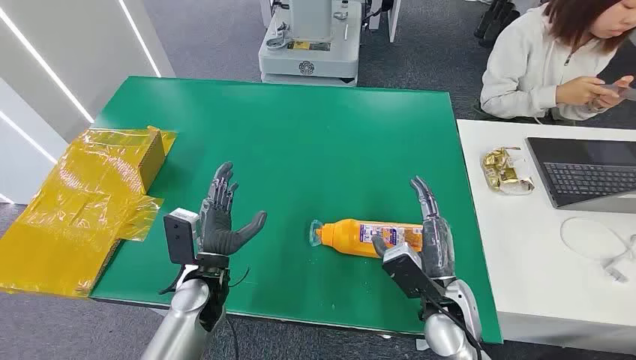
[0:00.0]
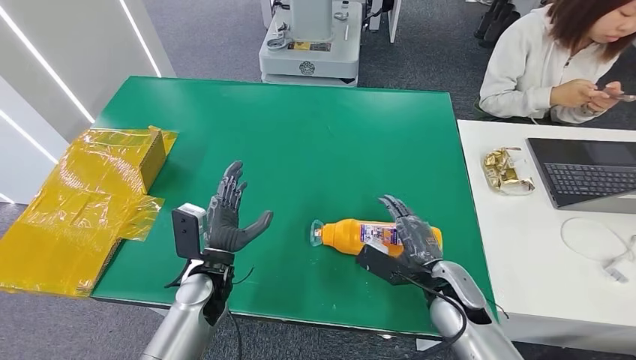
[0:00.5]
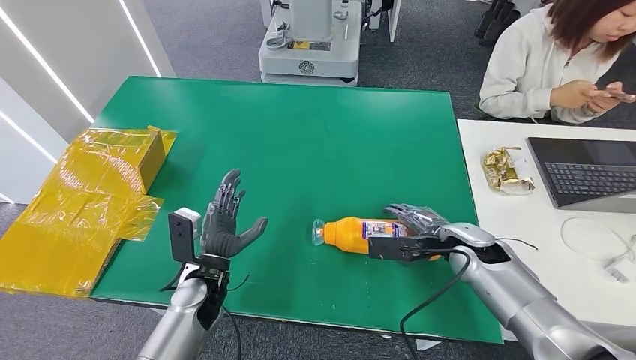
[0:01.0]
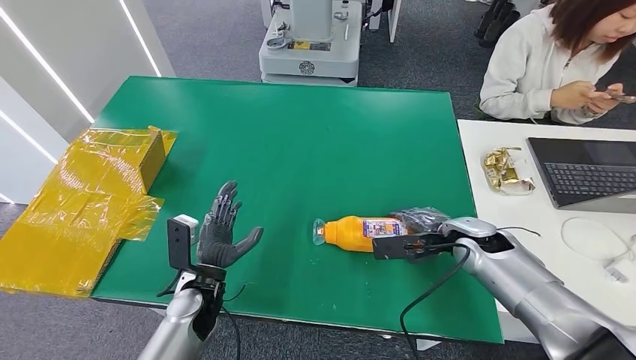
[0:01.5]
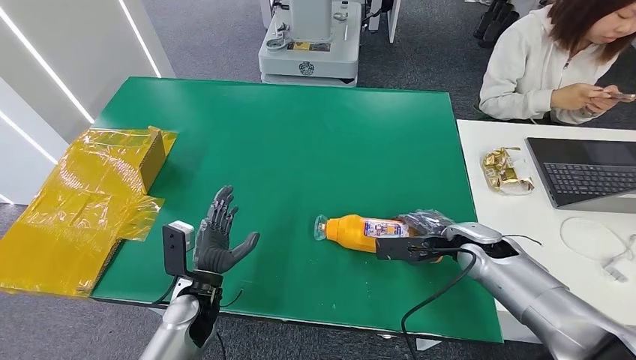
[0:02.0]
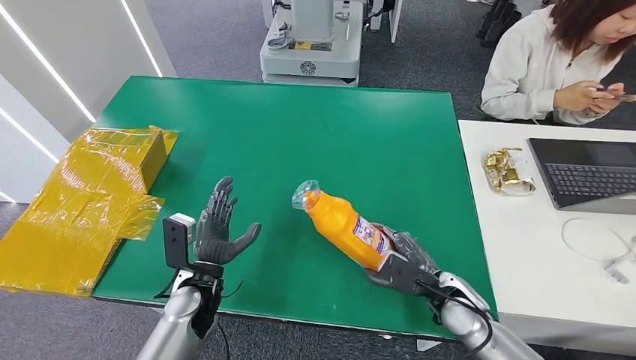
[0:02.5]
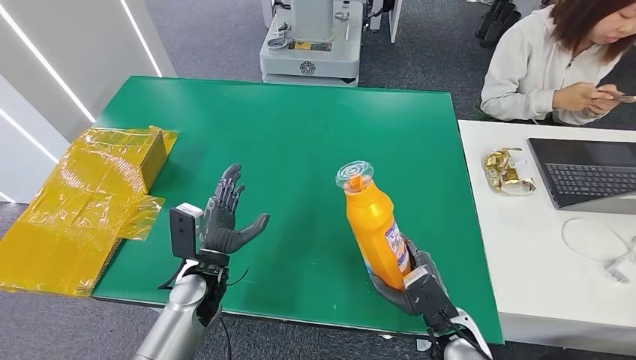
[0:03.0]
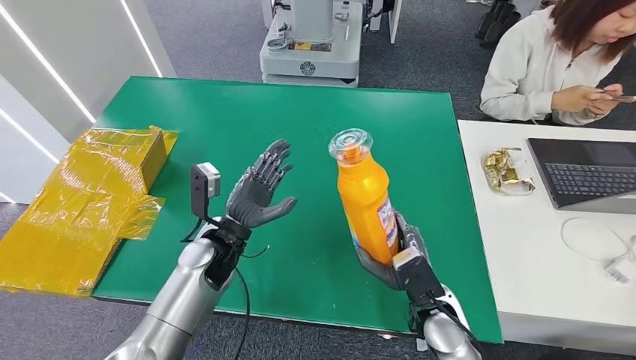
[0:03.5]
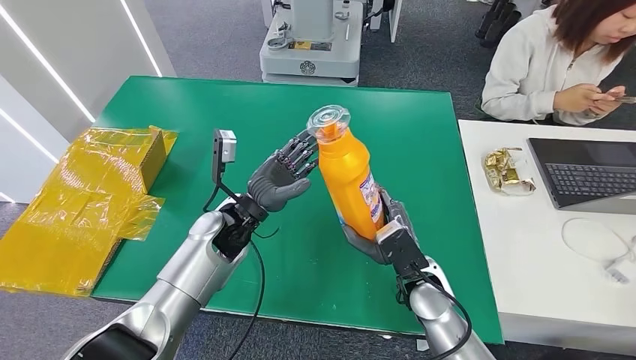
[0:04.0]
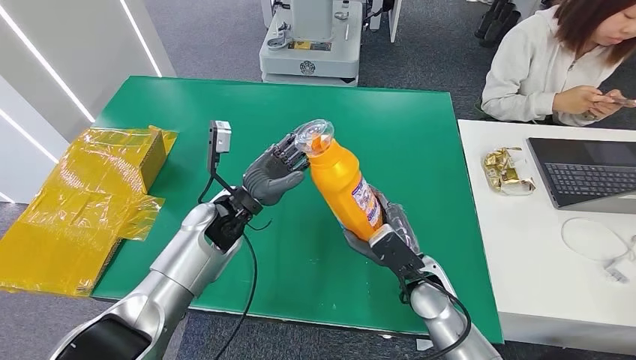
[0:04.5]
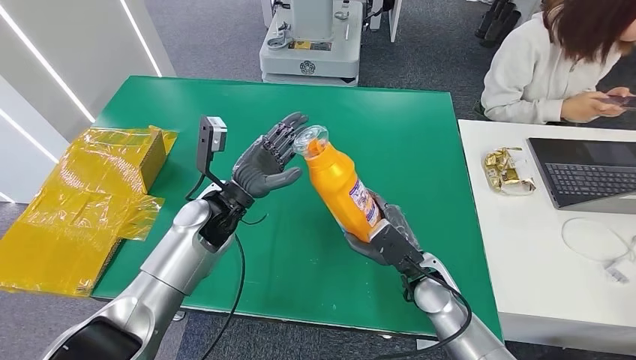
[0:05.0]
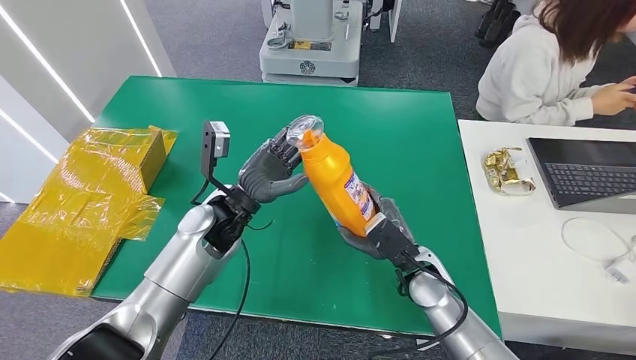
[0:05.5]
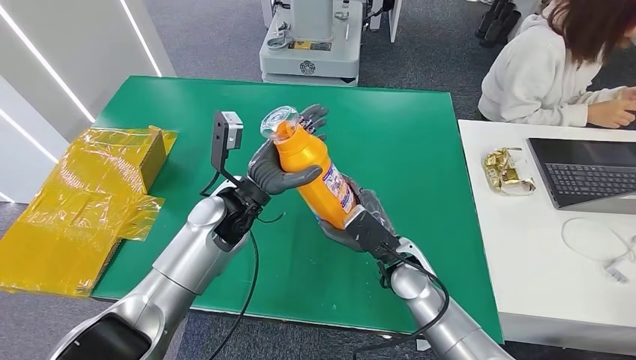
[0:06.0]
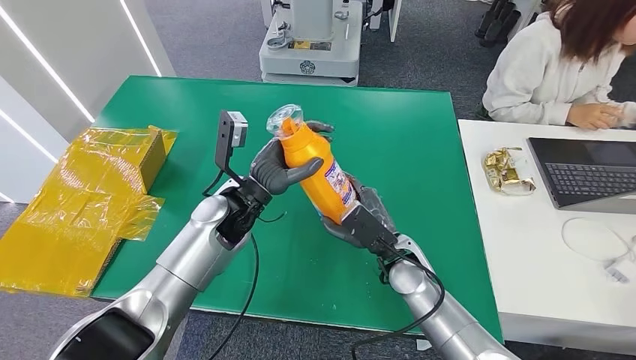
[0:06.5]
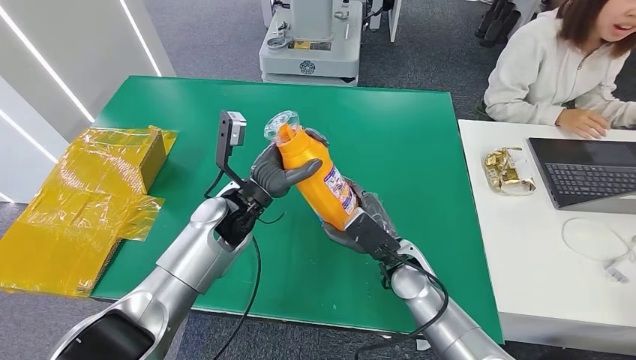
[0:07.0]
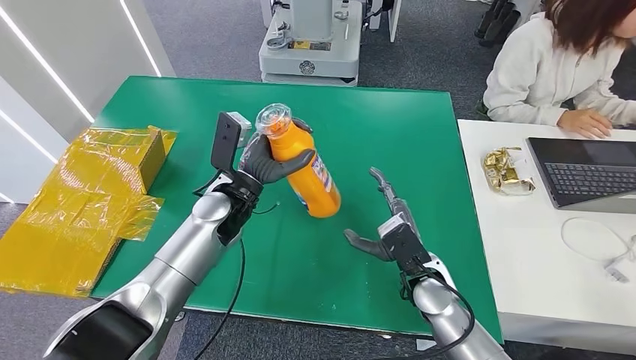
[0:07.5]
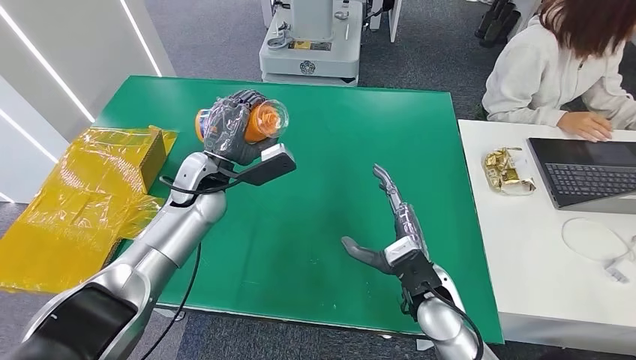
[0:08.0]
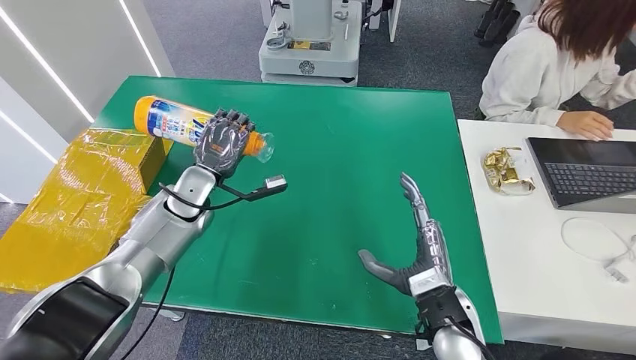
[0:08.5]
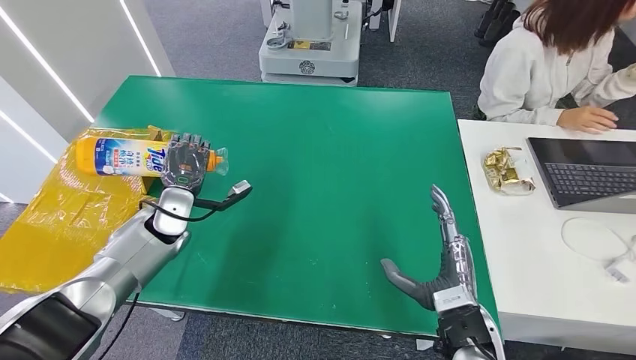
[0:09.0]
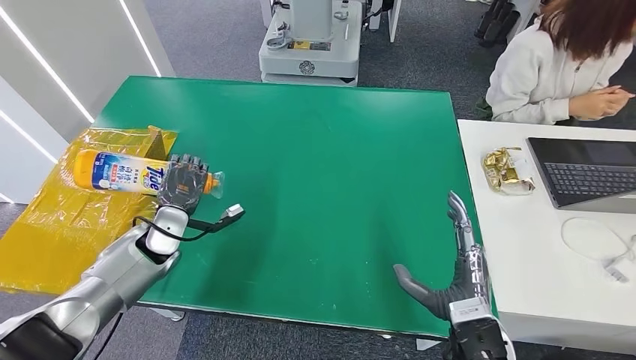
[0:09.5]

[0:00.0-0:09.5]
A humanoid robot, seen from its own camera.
Step, 0:00.0 to 0:03.5: Pick up the bottle from the table.
0:04.0 to 0:05.5: The hands make only small movements.

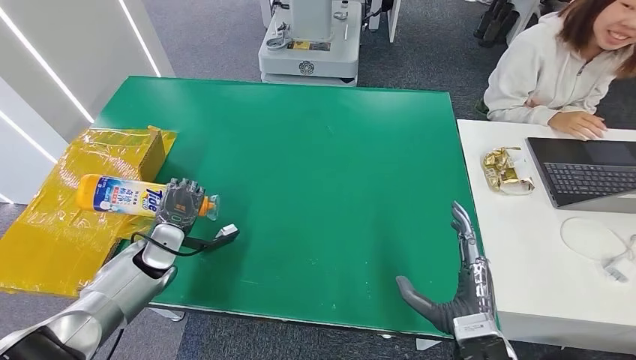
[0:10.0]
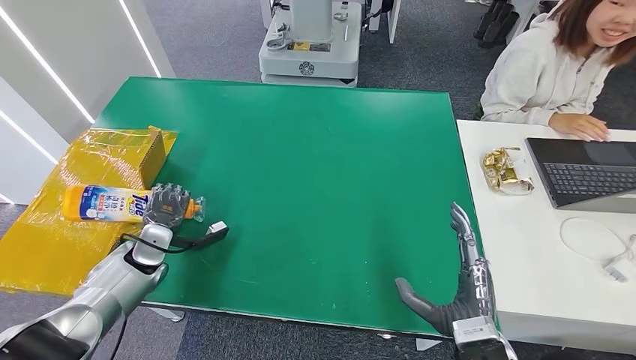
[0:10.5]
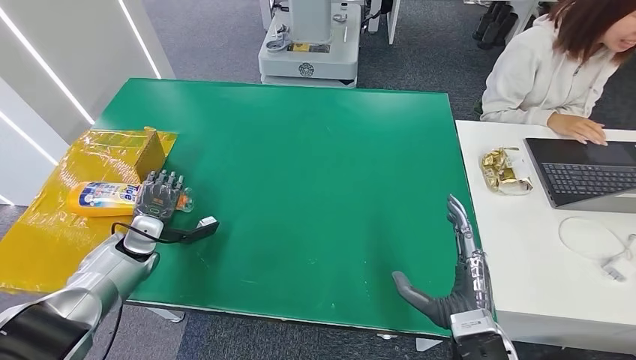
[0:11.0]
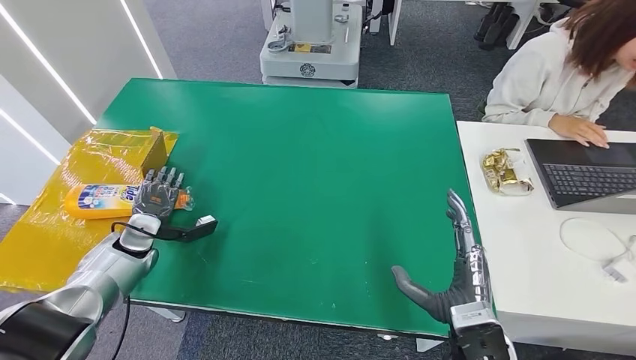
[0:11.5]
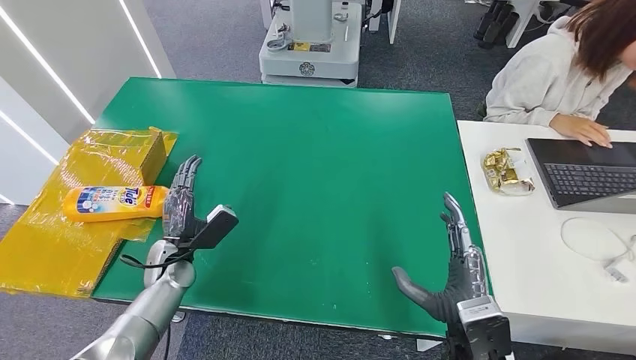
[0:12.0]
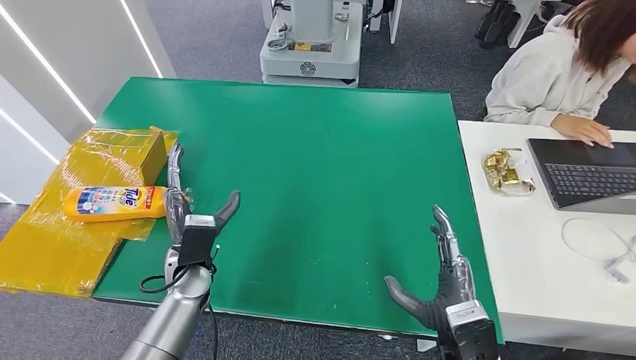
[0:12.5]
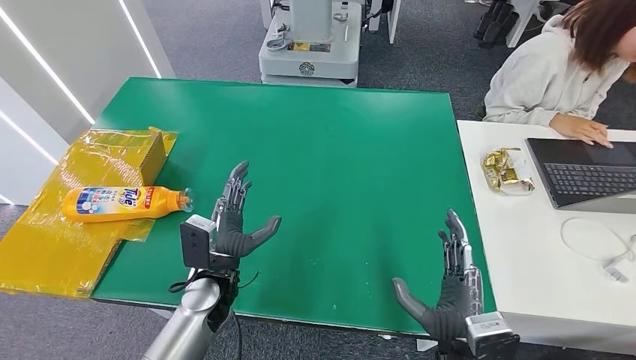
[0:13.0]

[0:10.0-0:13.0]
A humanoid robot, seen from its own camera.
Step, 0:10.0 to 0:13.0: Turn the bottle to the front side.
0:10.0 to 0:11.5: The left hand moves to the left, some 5 cm.
0:11.5 to 0:13.0: The left hand shifts roughly 20 cm to the right.

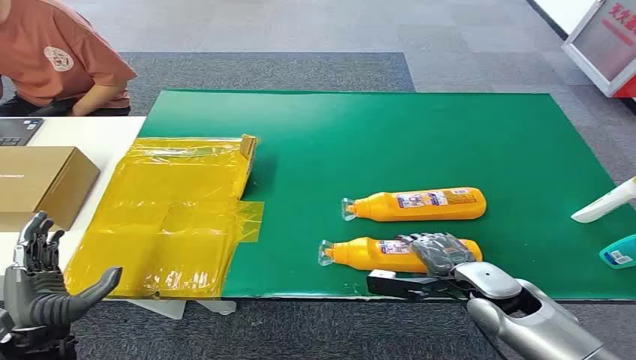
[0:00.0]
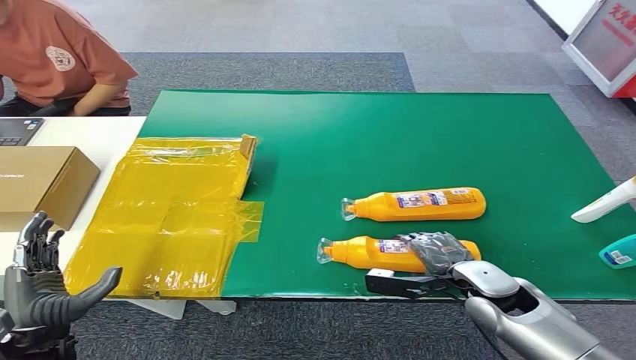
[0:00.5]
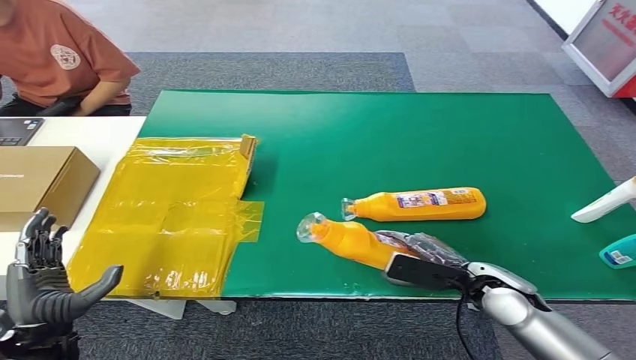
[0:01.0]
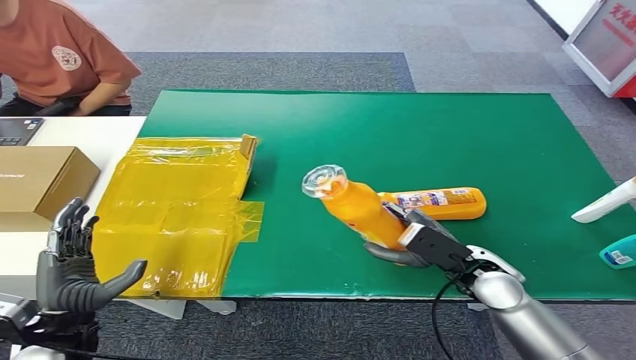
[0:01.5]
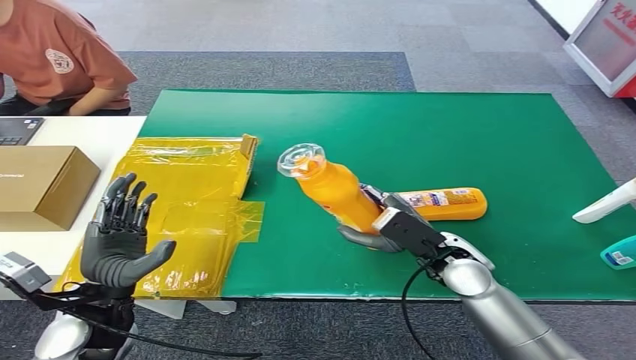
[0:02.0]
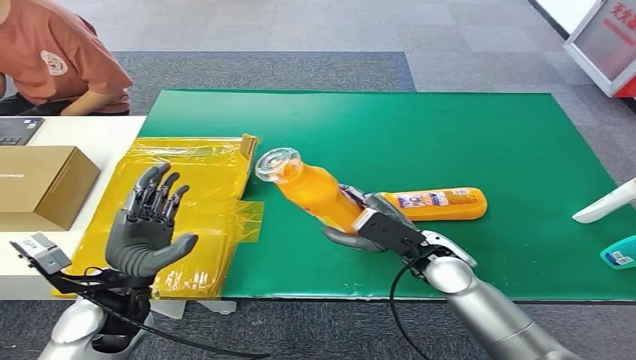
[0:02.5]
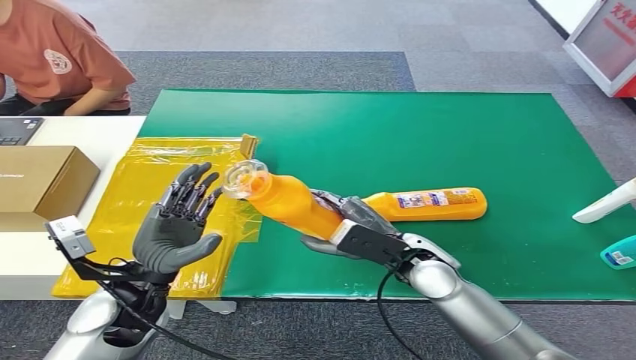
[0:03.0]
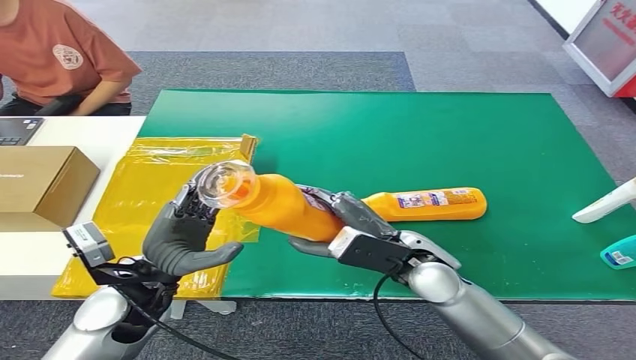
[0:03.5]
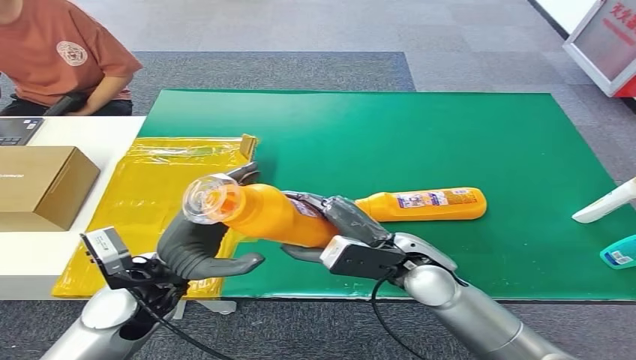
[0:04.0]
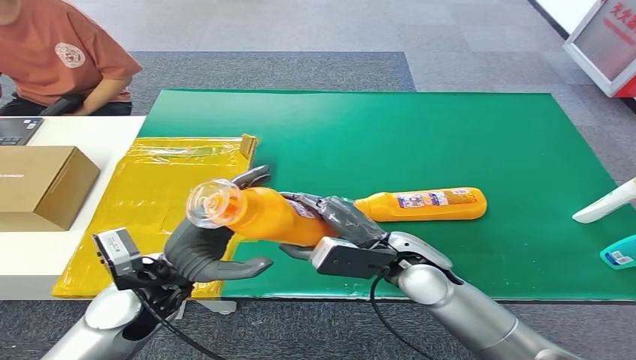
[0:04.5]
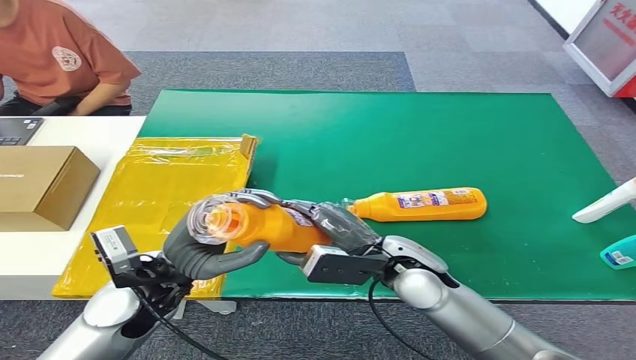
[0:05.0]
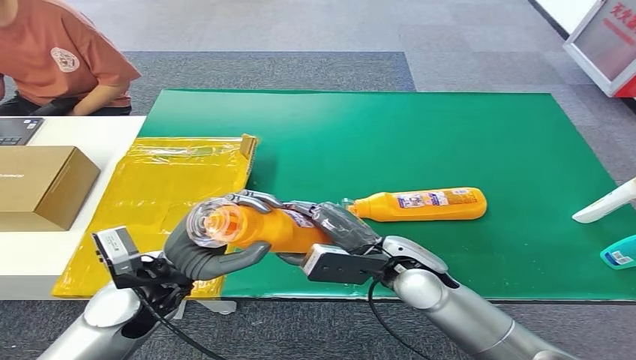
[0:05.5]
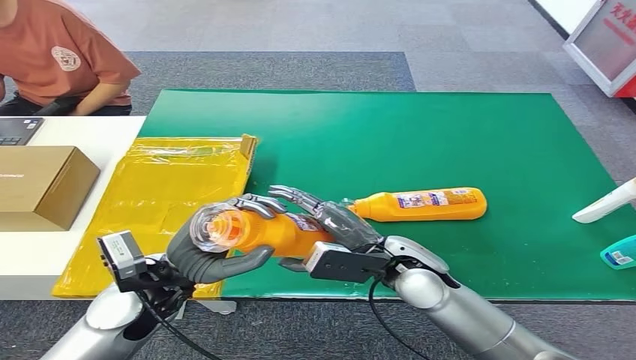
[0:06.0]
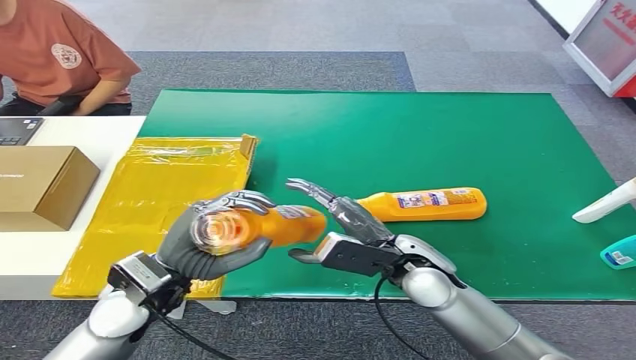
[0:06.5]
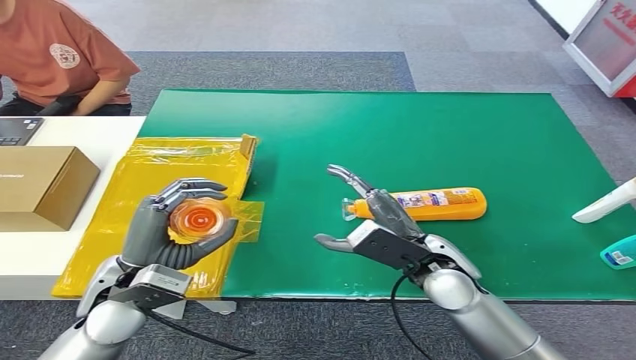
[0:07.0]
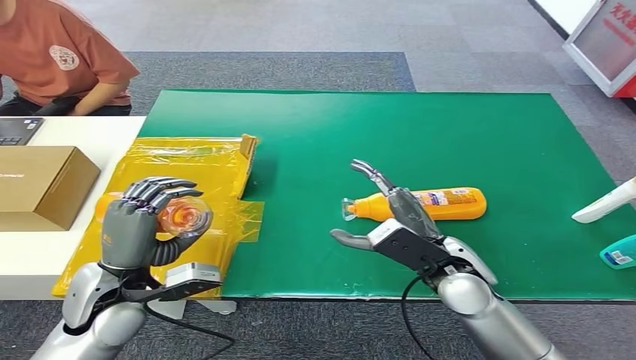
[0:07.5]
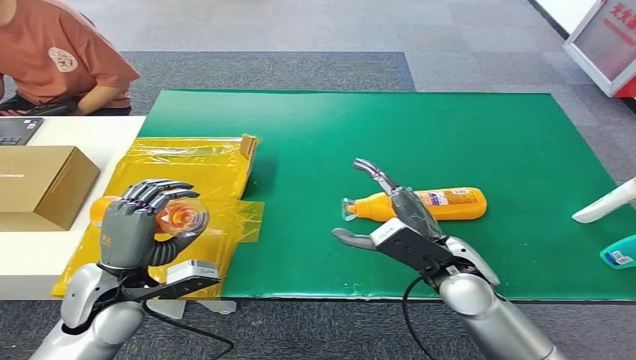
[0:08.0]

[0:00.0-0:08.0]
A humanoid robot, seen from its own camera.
Step, 0:00.0 to 0:02.0: Pick up the bottle from the table.
Step, 0:02.5 to 0:08.0: Turn the bottle to the front side.
0:04.0 to 0:06.0: The hands make only small movements.
0:06.0 to 0:08.0: The left hand moves to the left, about 5 cm; the right hand shifts about 5 cm to the right.
